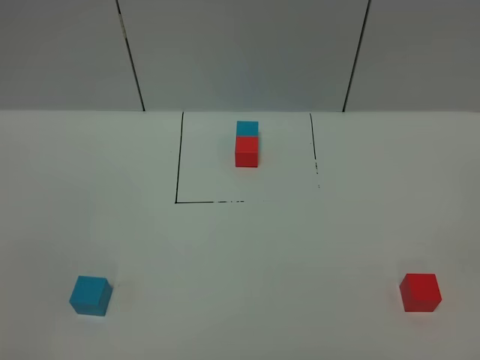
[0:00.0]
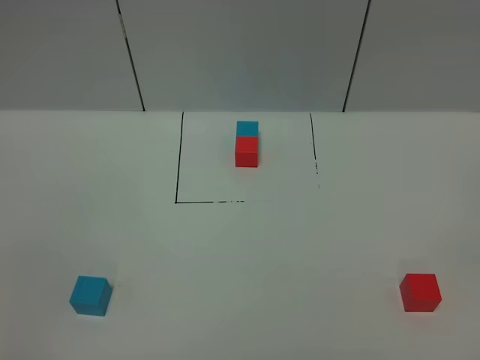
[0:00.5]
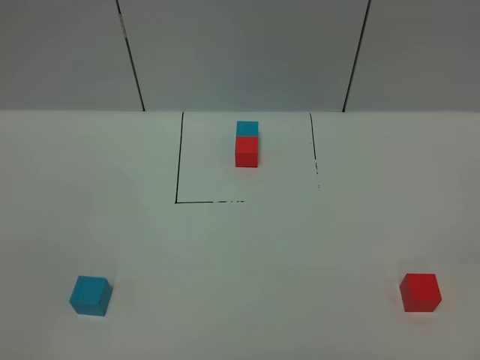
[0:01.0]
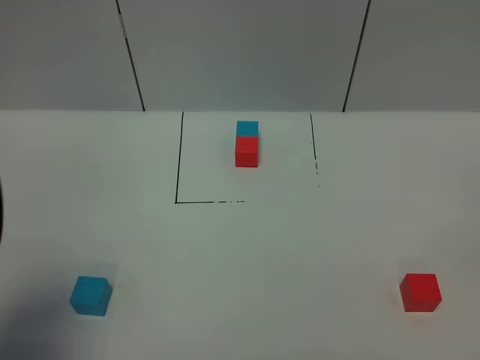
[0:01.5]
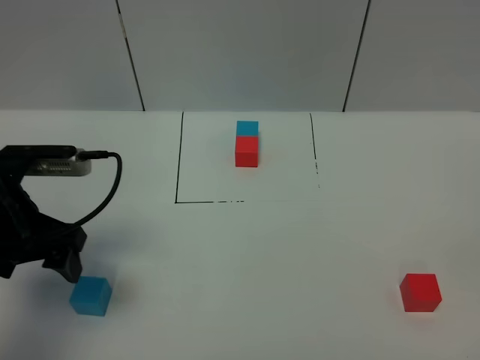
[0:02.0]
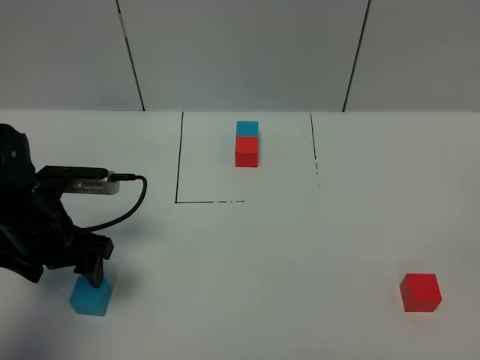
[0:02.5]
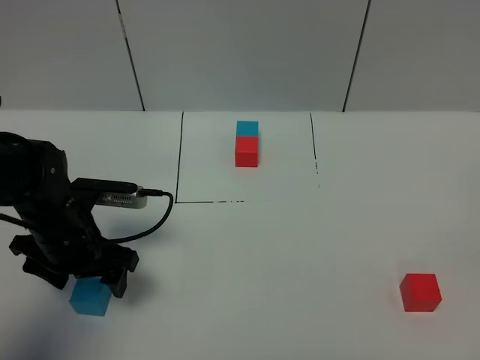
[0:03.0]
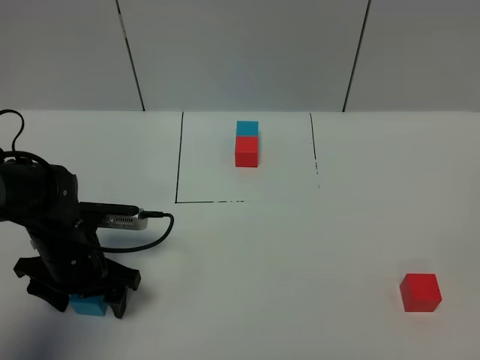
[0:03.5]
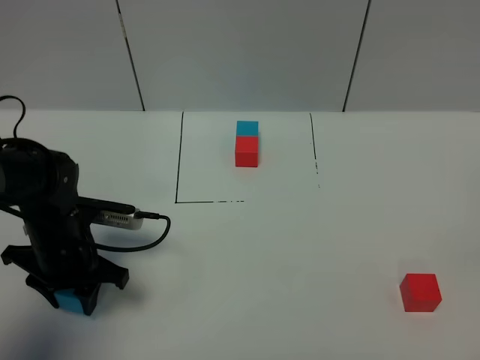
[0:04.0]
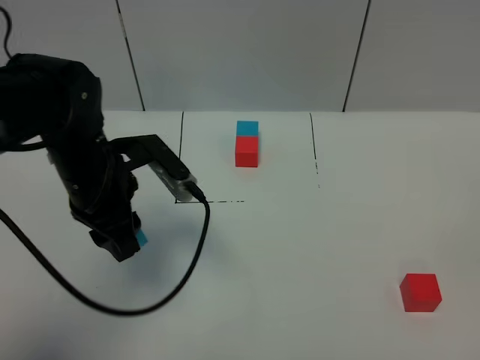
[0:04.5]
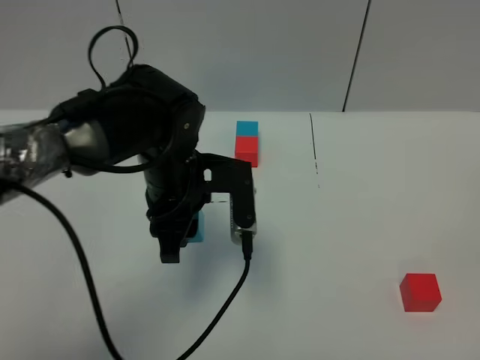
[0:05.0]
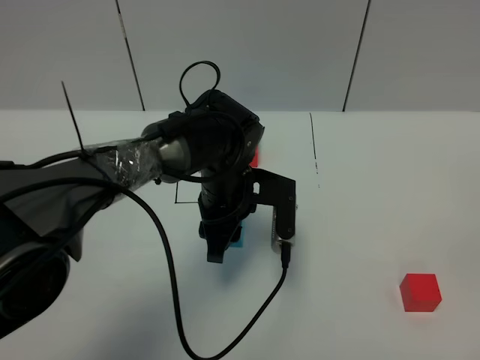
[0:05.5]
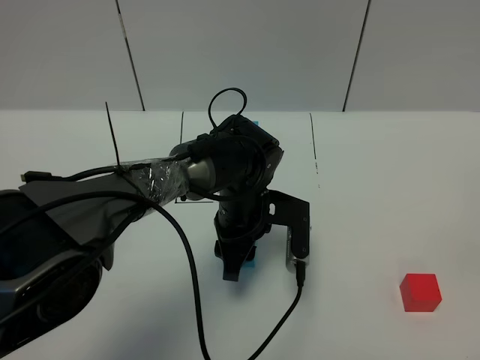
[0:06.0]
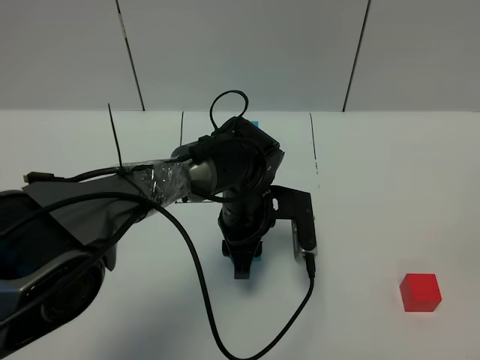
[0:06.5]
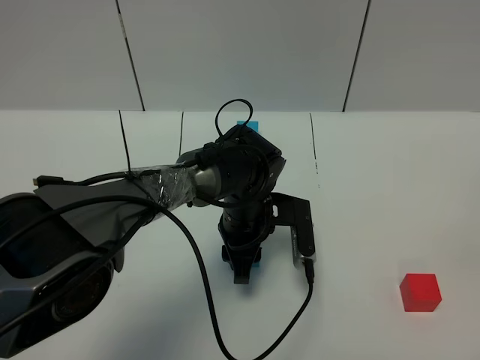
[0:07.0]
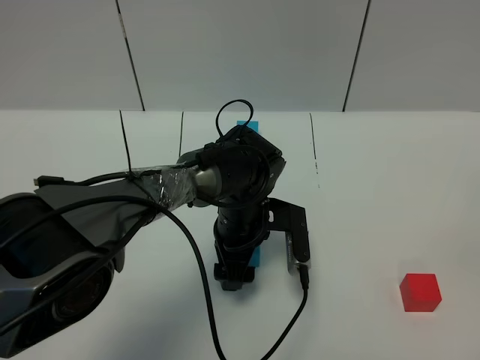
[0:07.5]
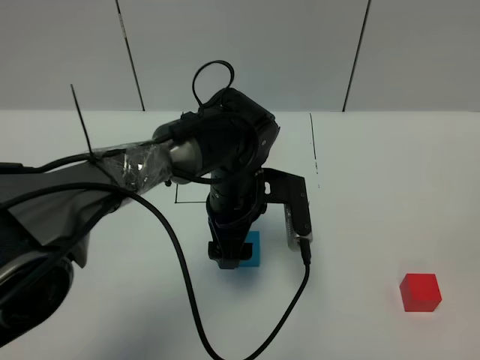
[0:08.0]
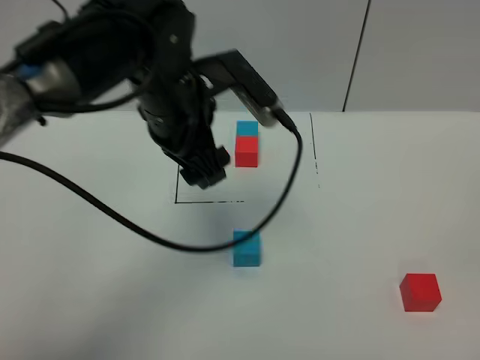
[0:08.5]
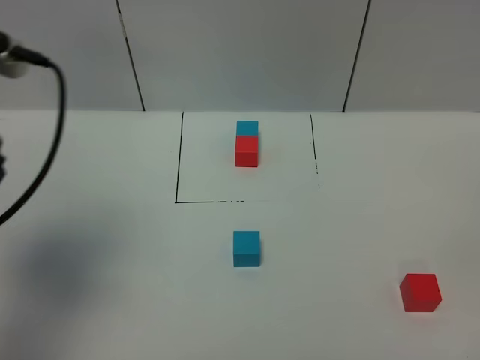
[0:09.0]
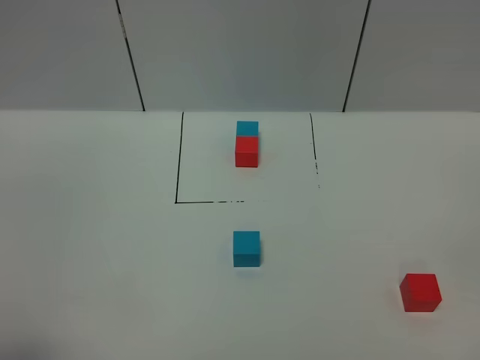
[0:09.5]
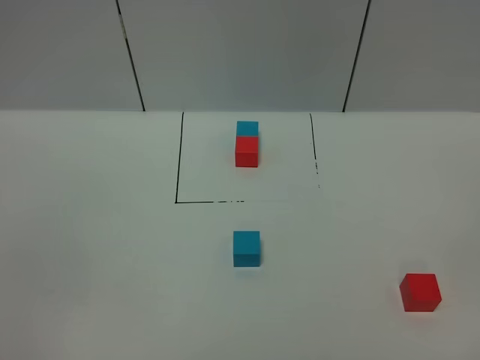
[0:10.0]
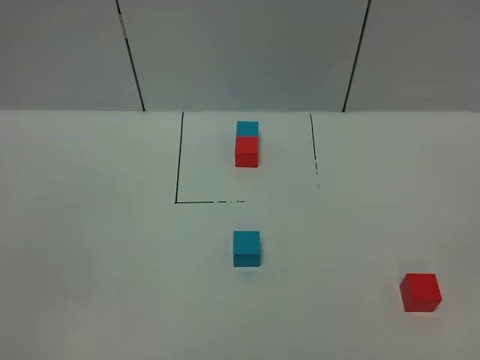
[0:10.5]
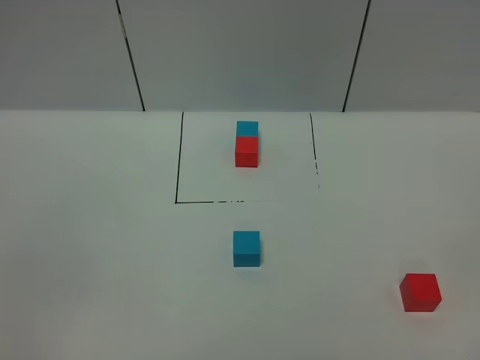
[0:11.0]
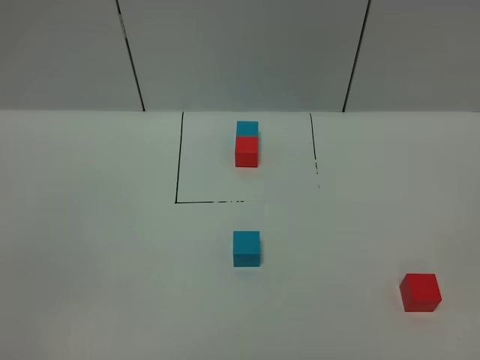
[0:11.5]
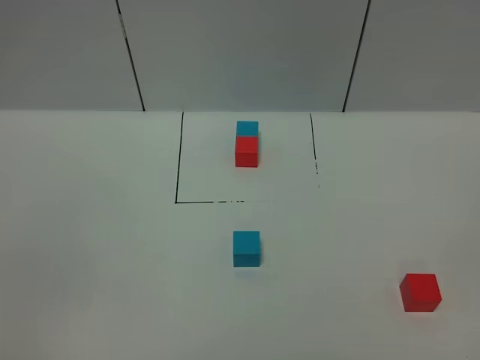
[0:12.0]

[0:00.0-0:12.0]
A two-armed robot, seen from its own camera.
Task of the whole recording: According to the building block template in front, assemble the scattered blocks together.
Step, 0:01.5 to 0:07.5: Put the blue cube in the center of the table.
0:00.0 to 0:02.0: The left gripper goes about 30 cm forward.
0:02.0 to 0:04.0: The left gripper is displaced downward by some 10 cm, and closes.
0:04.0 to 0:06.0: The left gripper travels to the right by roughly 20 cm.
0:06.0 to 0:08.0: The left gripper opens up.
0:08.0 to 0:10.0: The left gripper shifts about 50 cm backward and to the left.

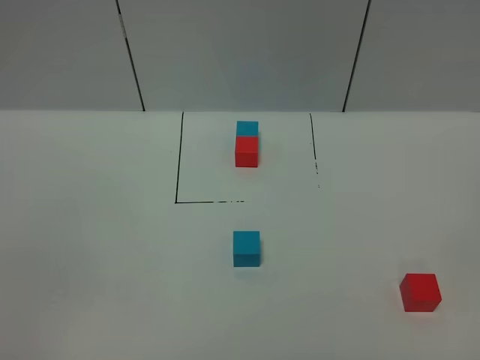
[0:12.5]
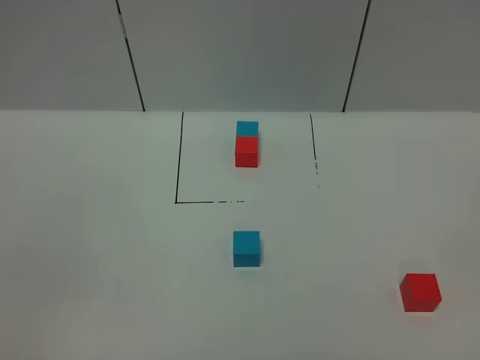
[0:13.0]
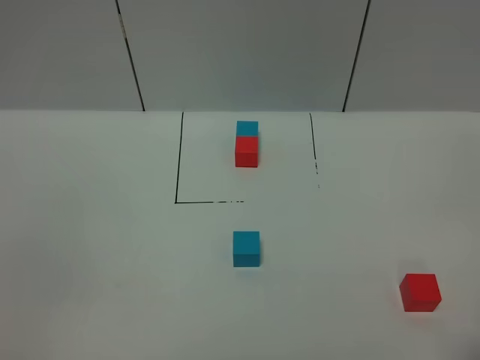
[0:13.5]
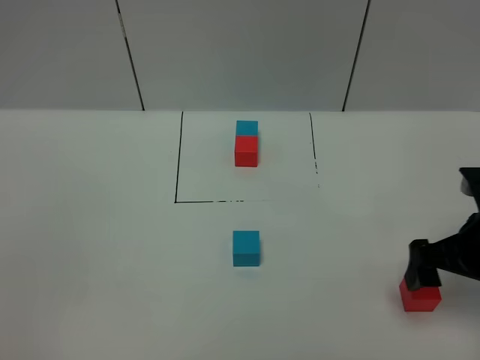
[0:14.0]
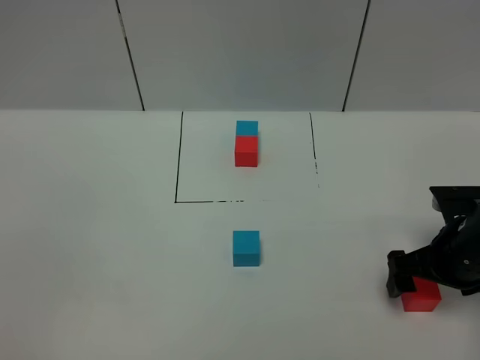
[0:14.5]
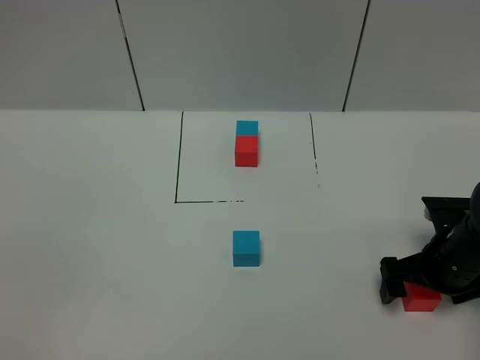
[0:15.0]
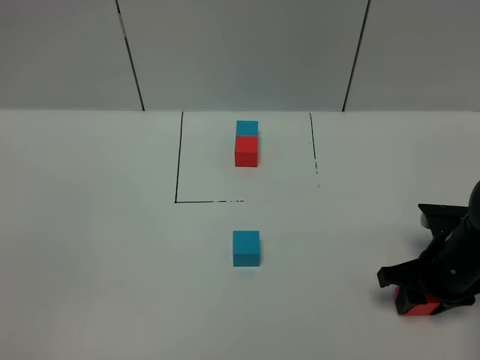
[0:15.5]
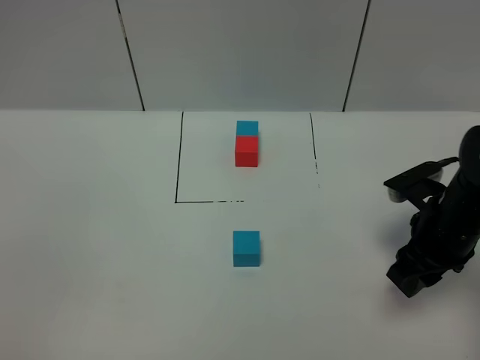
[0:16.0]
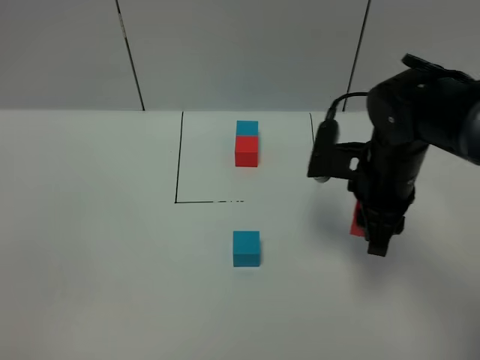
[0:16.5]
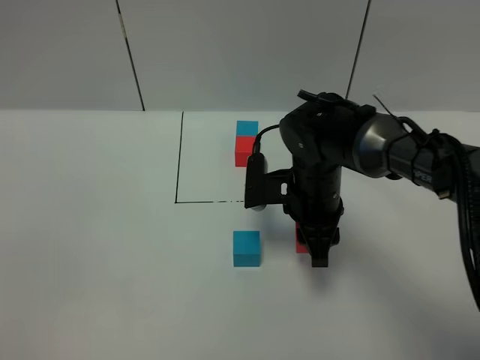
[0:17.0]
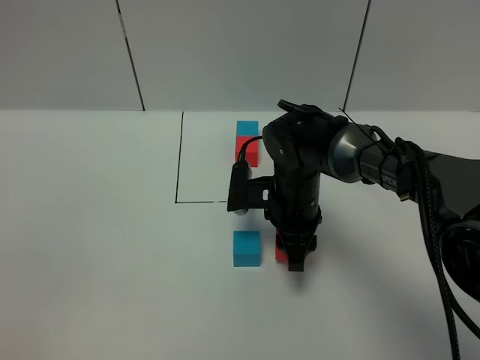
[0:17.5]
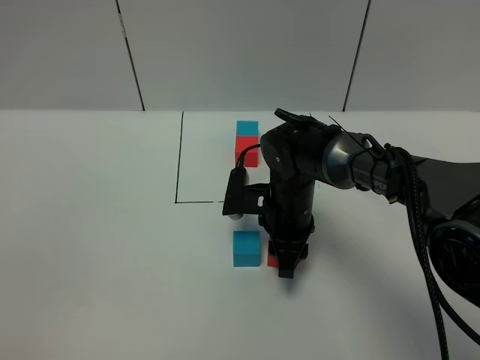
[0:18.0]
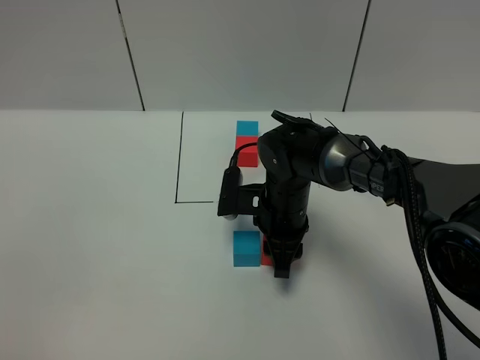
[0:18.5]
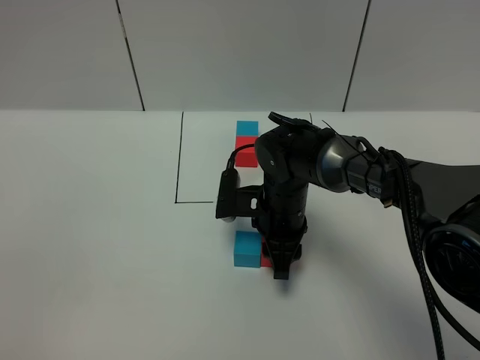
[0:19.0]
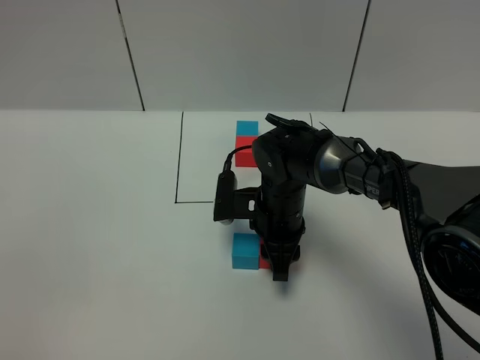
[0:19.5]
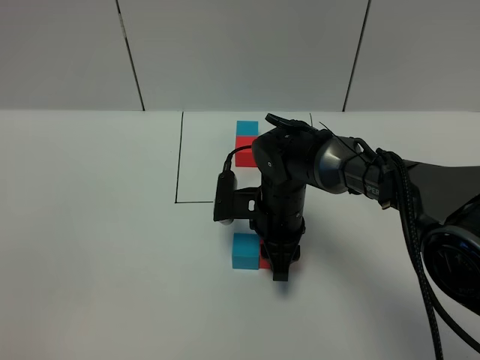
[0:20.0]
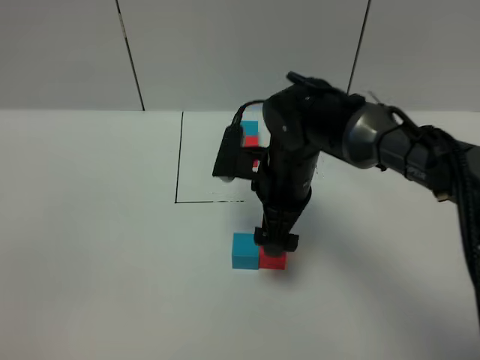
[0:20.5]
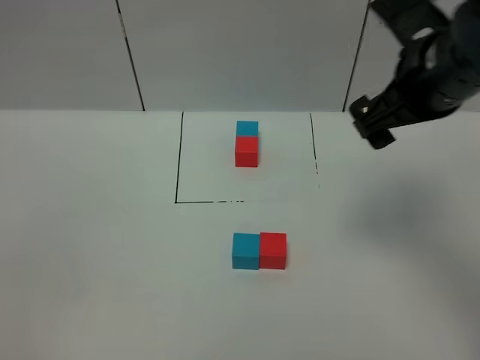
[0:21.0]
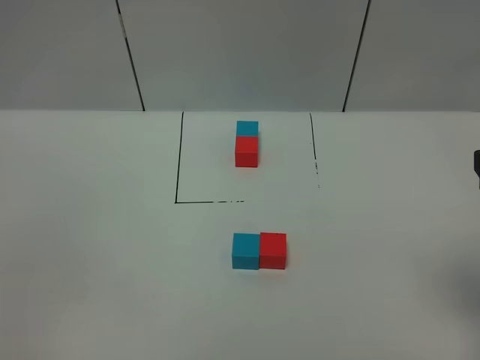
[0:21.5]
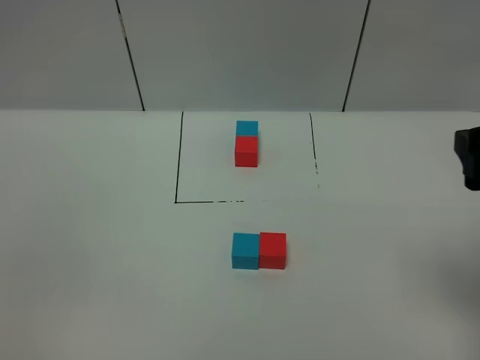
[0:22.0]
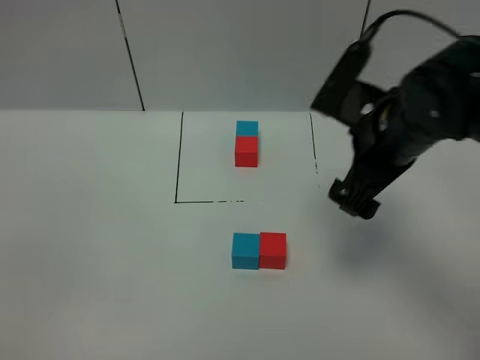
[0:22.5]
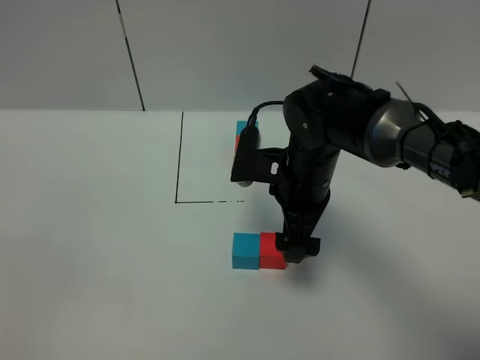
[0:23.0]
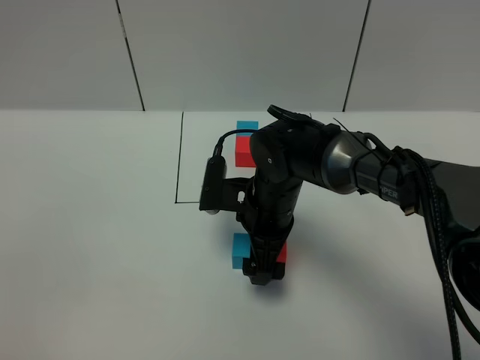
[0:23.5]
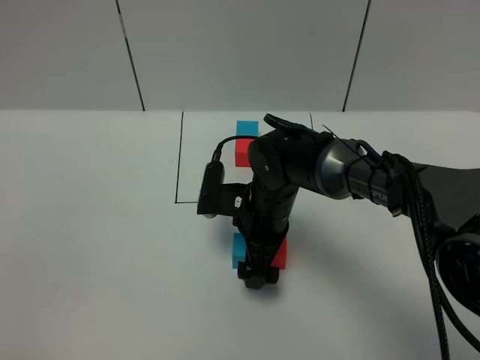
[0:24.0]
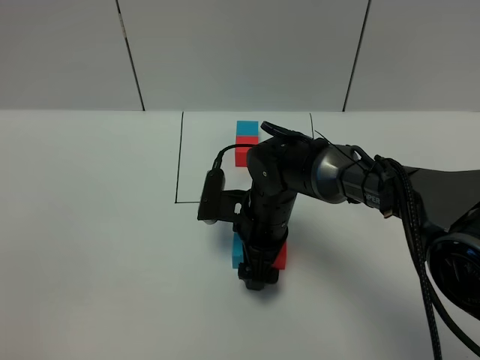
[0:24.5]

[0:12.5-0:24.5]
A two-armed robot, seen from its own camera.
Task of the whole recording: According to the building block template in front, assemble the scattered blocks together.
Step, 0:12.5 to 0:20.0: Put the red cube on the right of the blue cube.
0:12.5 to 0:14.5: The right gripper heads forward and downward, covering some 35 cm.
0:14.5 to 0:16.5: The right gripper shifts about 15 cm to the left, upward and forward, and closes up.
0:16.5 to 0:18.5: The right gripper heads to the left and downward, covering roughly 15 cm.
0:18.5 to 0:20.5: The right gripper heads upward, covering roughly 10 cm, and opens its fingers.
0:20.5 to 0:22.5: The right gripper heads to the right and upward, covering roughly 10 cm.
0:22.5 to 0:24.5: The right gripper is displaced downward and to the left by about 20 cm.

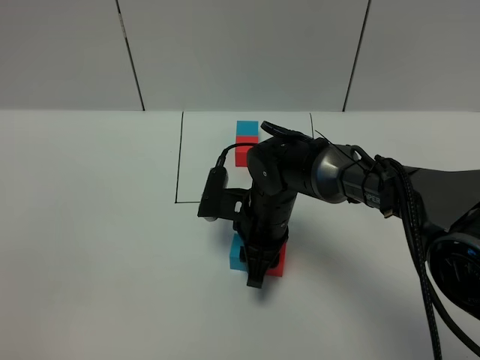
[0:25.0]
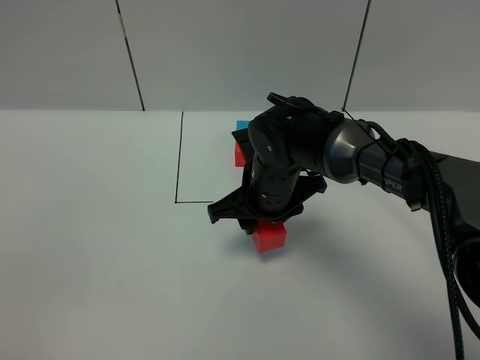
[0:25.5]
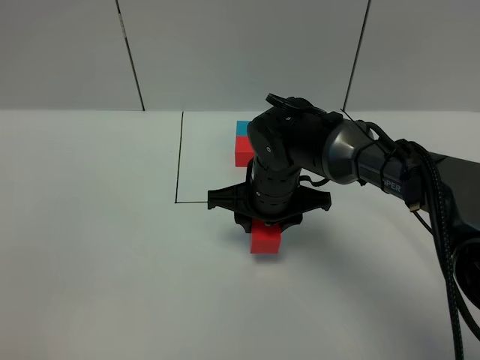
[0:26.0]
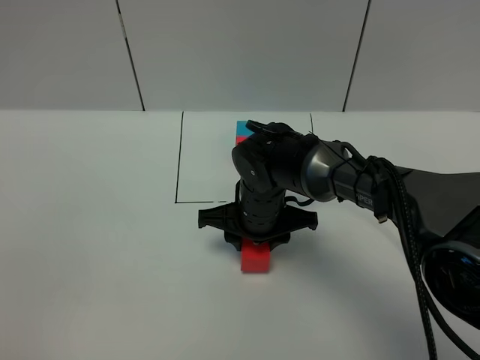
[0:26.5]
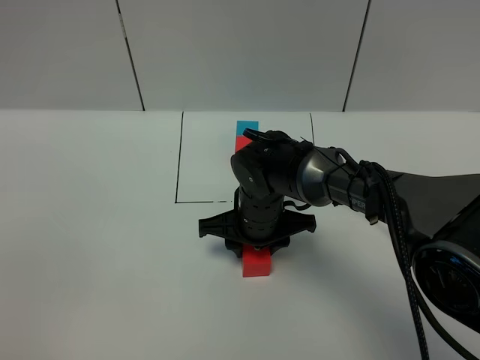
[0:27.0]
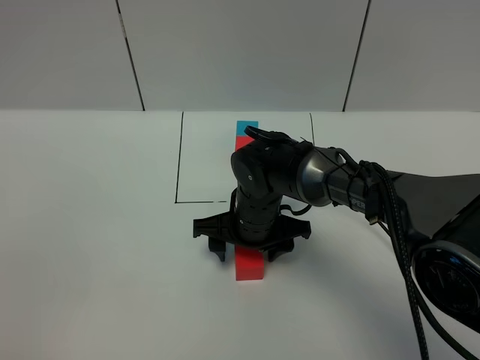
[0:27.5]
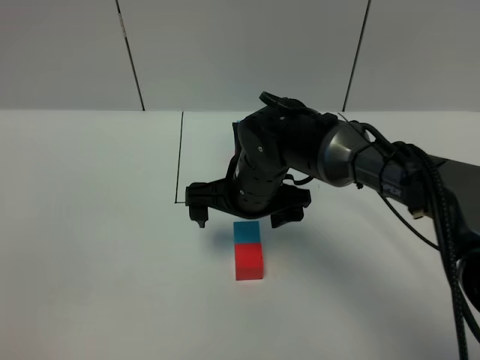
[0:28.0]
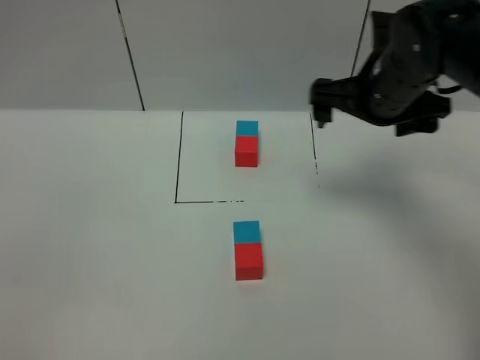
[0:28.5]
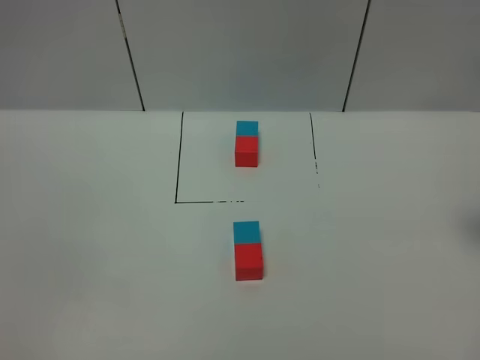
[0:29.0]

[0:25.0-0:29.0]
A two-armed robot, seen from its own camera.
Task of the whole recording: According to the building block template in front, assemble the scattered blocks together.
Step, 0:25.0 to 0:27.0: Adjust the pose of the building blocks.
0:27.0 to 0:29.0: The right gripper goes approximately 40 cm to the right and upward, and opens its fingers.
